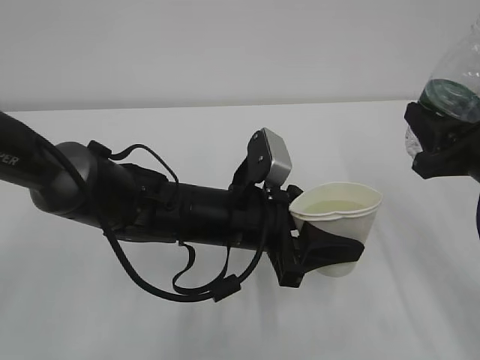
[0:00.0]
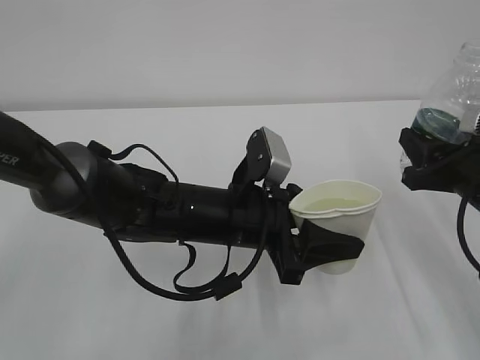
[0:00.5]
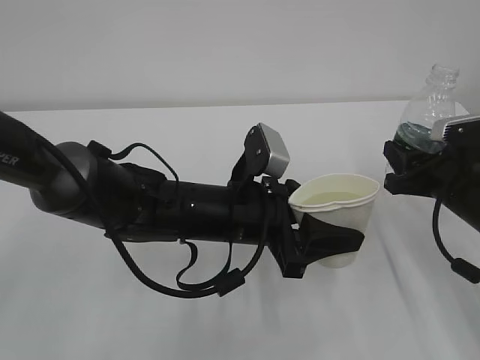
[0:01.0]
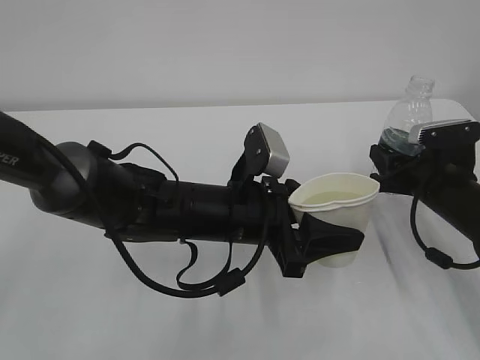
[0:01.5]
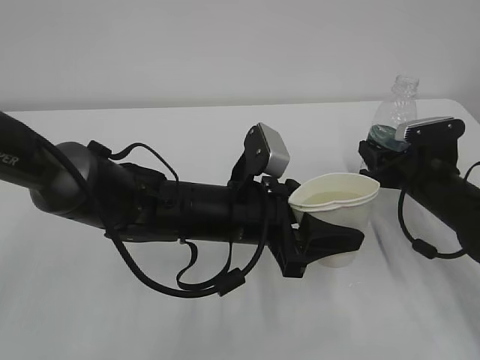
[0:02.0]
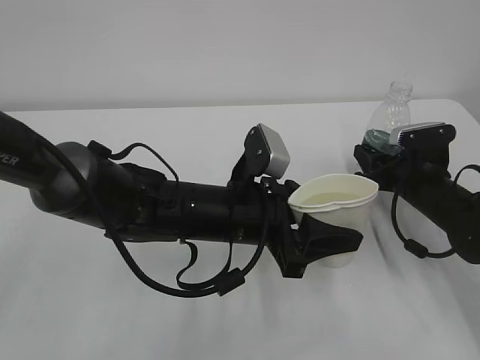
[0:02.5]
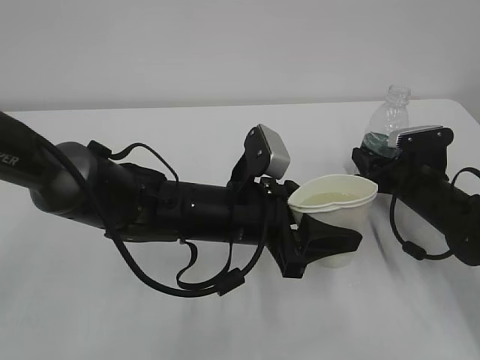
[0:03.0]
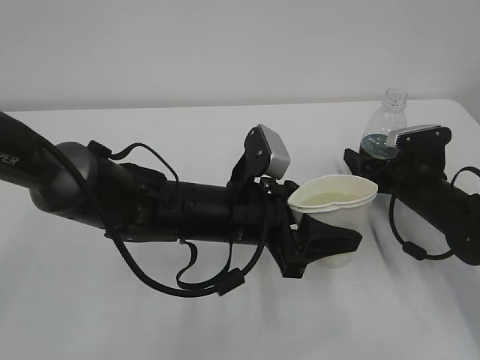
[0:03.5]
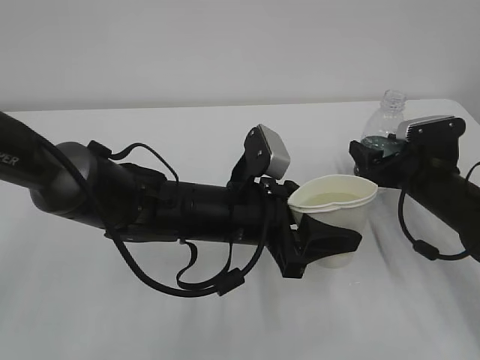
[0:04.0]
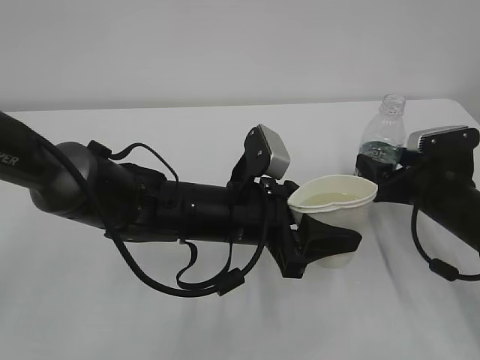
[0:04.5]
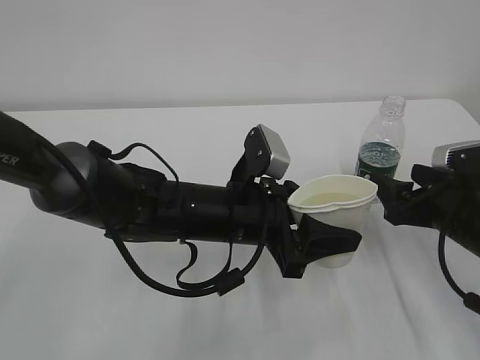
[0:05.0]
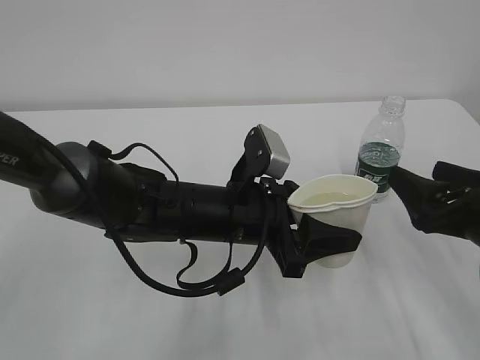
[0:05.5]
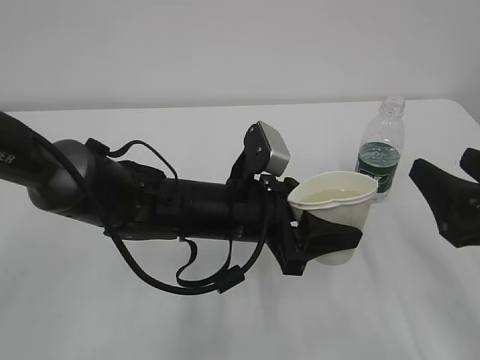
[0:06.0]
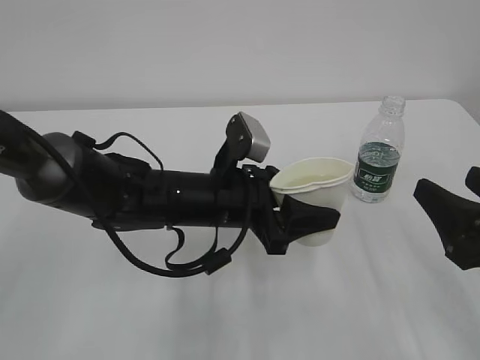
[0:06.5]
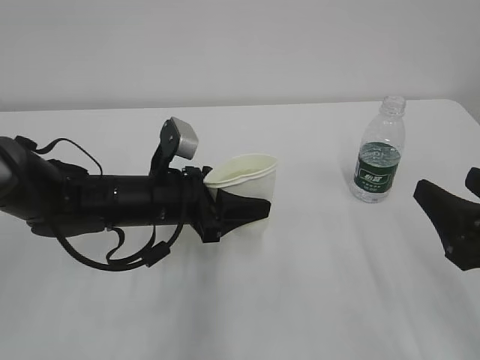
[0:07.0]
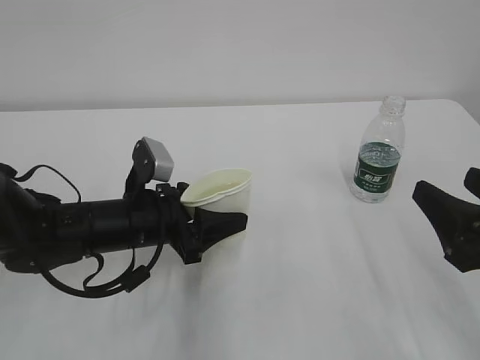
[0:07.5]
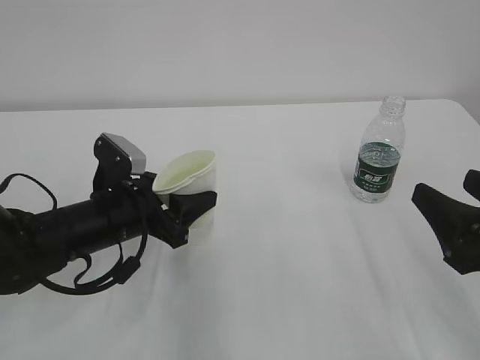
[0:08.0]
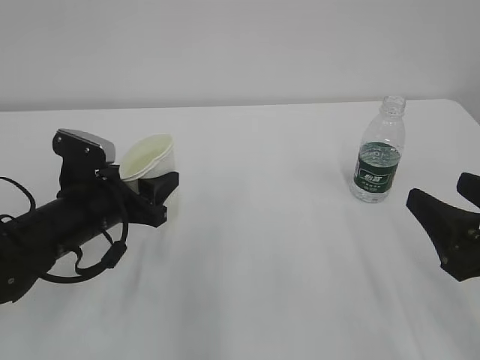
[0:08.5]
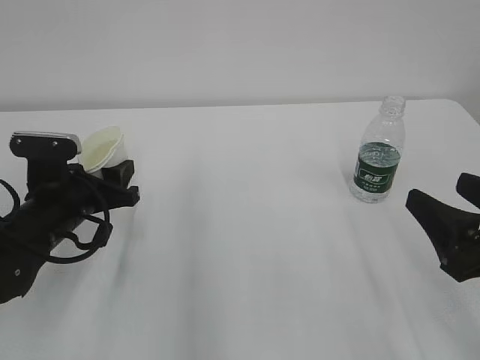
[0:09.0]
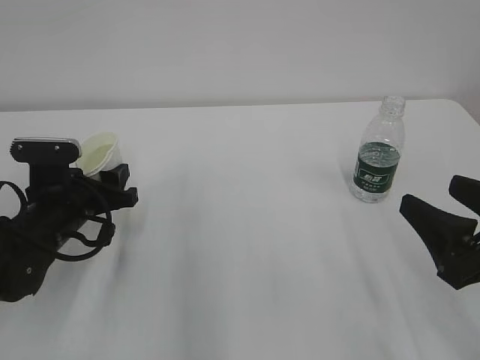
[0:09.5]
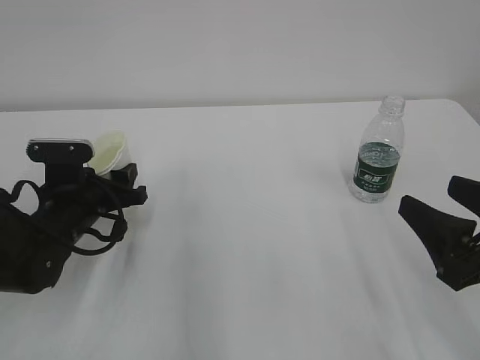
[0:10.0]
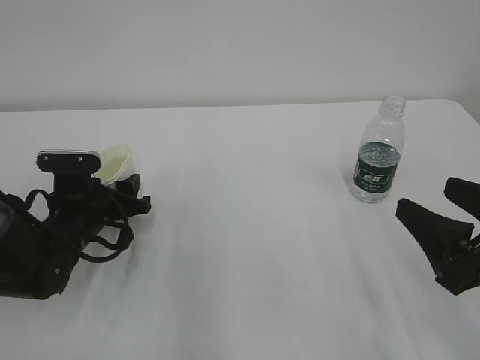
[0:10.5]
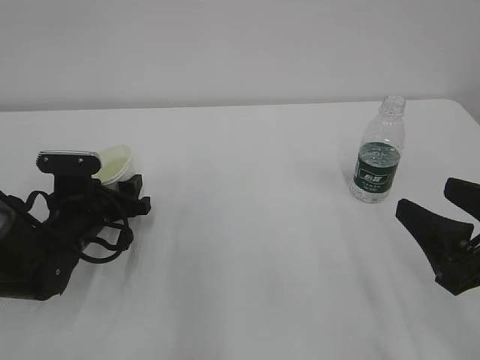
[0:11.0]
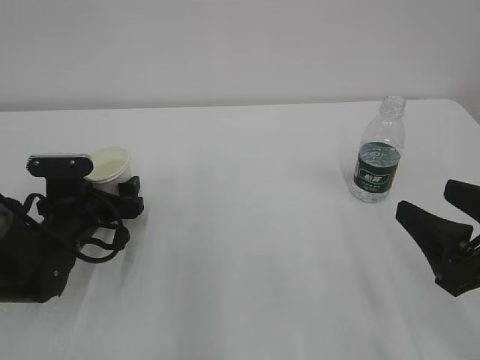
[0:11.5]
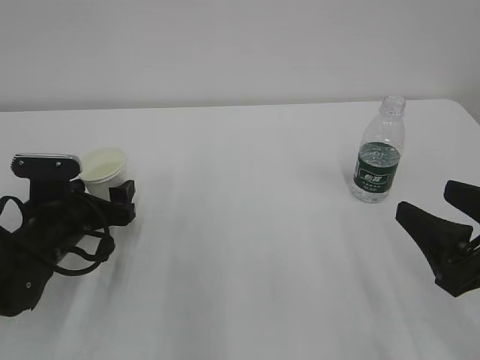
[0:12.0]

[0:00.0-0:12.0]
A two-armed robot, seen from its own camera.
0:00.0 to 0:02.0: The right gripper moves downward and forward, some 15 cm.
0:02.0 to 0:04.0: The right gripper opens up.
0:04.0 to 0:06.0: The right gripper heads backward and upward, covering some 20 cm.
0:06.0 to 0:08.0: The left gripper moves to the left, about 15 cm.
0:08.0 to 0:10.0: The left gripper shifts about 5 cm to the left.
0:10.0 to 0:12.0: The left gripper opens its fingers.

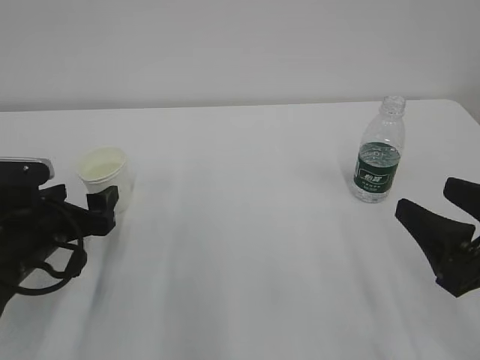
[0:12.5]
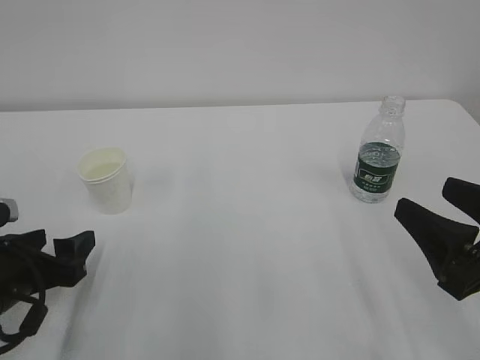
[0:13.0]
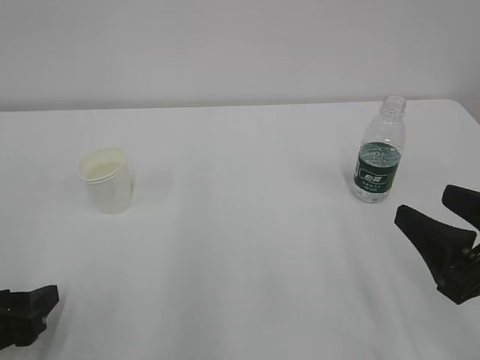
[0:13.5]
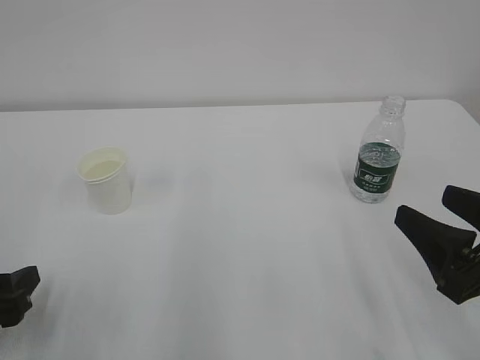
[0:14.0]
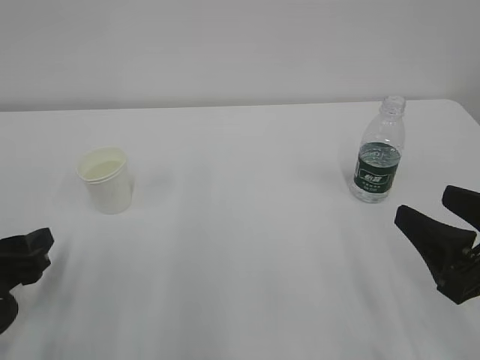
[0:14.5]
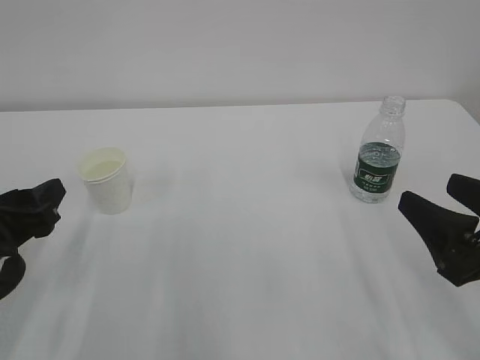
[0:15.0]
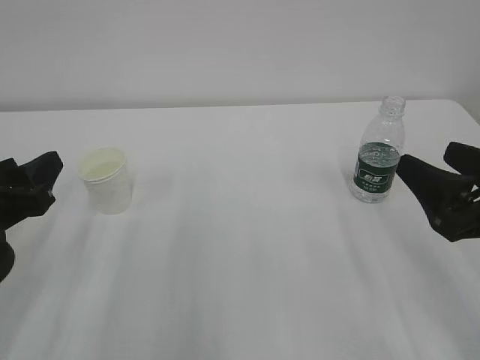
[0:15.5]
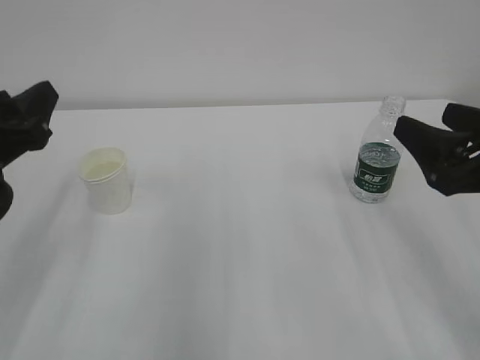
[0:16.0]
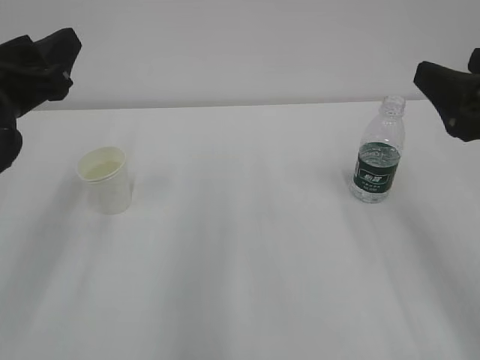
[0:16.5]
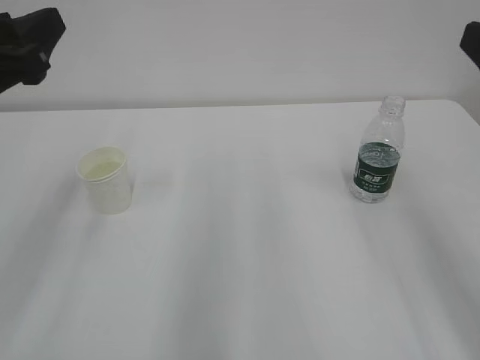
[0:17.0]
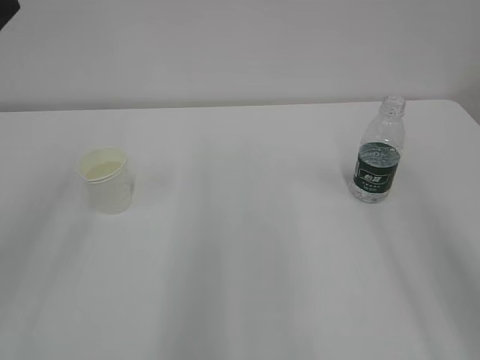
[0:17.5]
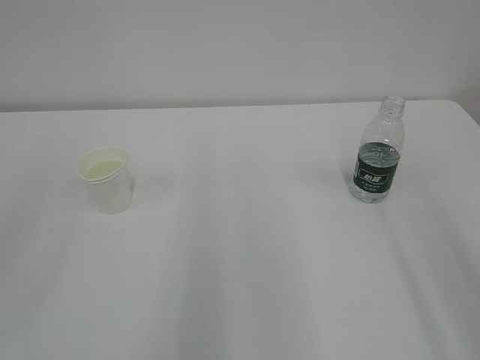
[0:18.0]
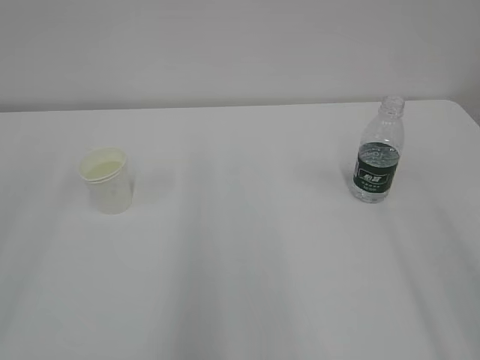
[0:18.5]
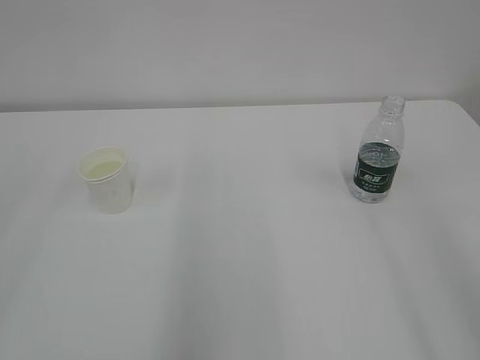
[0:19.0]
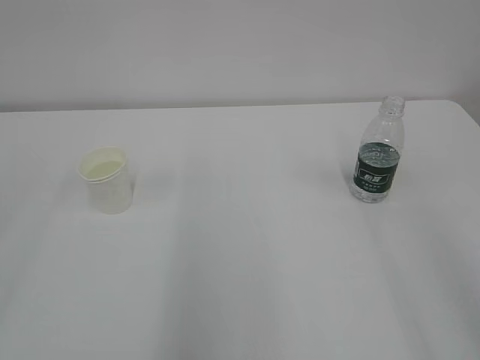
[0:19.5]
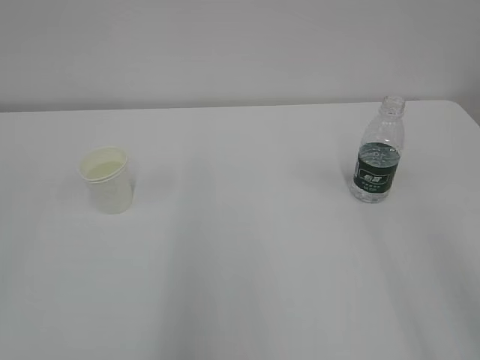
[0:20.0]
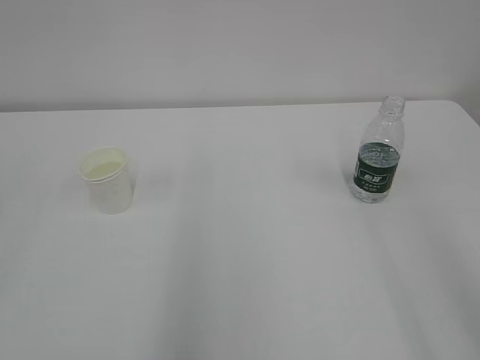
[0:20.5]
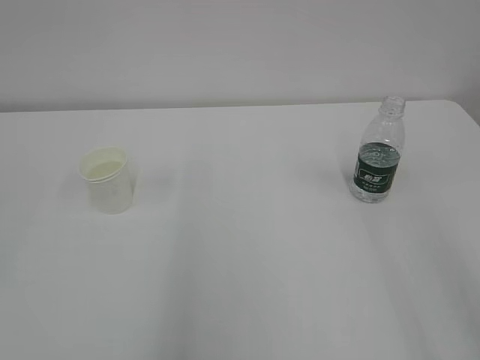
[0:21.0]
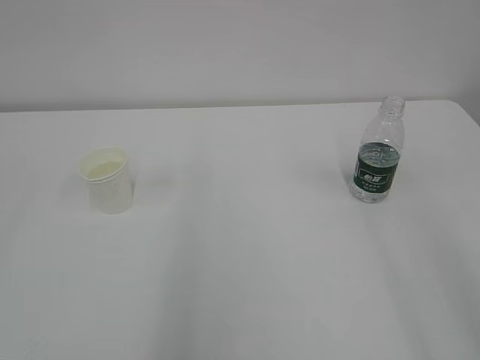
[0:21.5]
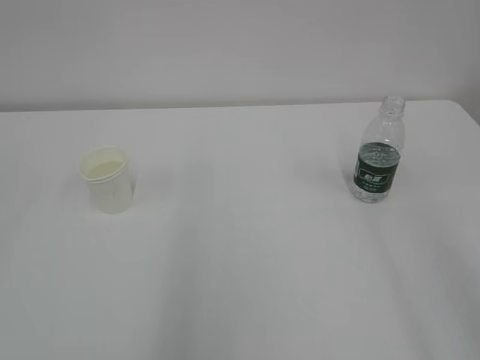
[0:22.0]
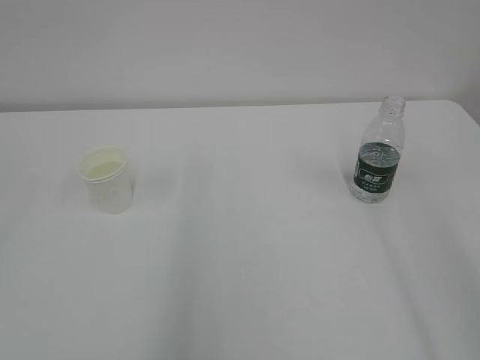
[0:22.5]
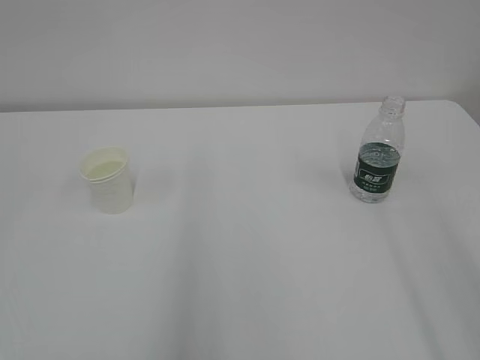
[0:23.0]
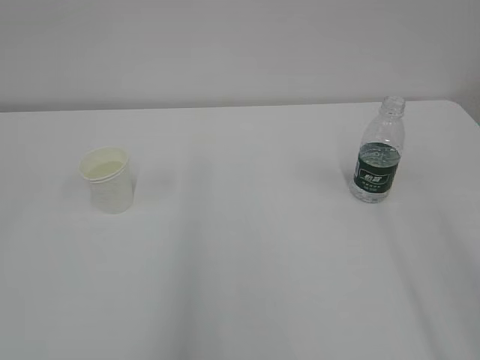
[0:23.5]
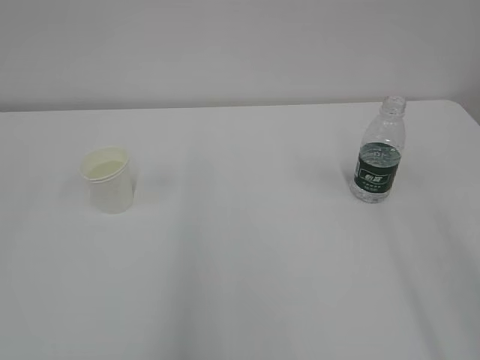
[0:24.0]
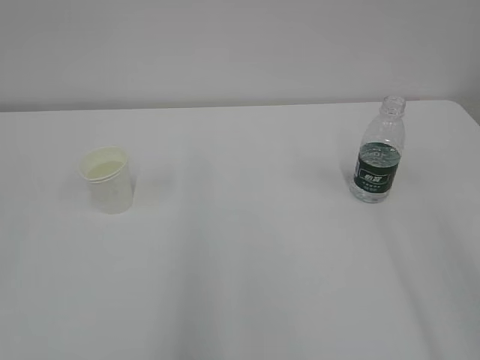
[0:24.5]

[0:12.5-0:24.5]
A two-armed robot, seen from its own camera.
0:12.5 to 0:14.5: The left gripper shifts approximately 10 cm backward, and closes up.
0:14.5 to 0:16.5: Both grippers travel together upward and forward, approximately 15 cm.
0:16.5 to 0:18.5: Both grippers travel together backward and upward, some 20 cm.

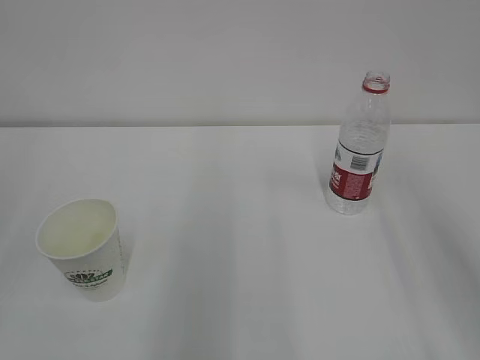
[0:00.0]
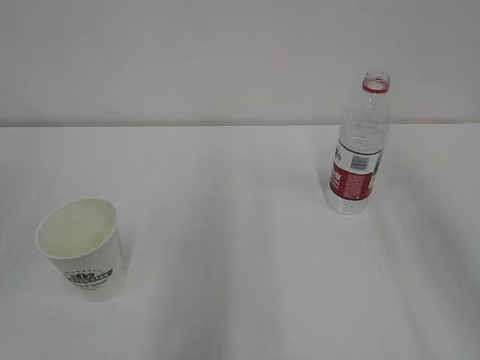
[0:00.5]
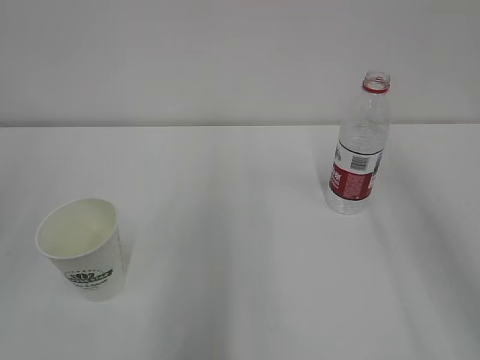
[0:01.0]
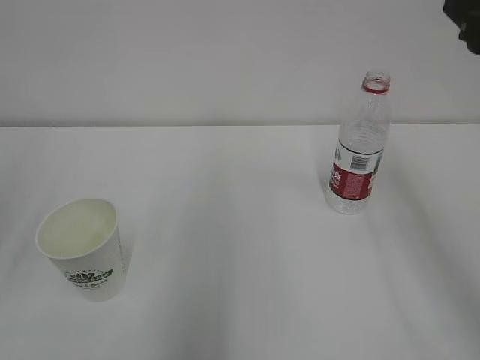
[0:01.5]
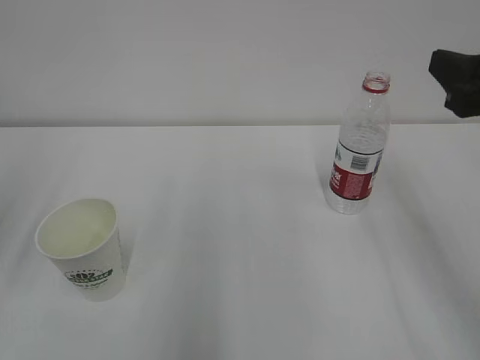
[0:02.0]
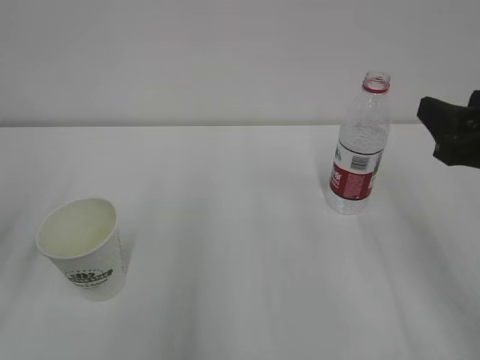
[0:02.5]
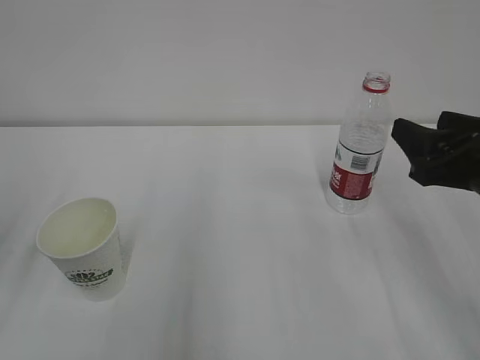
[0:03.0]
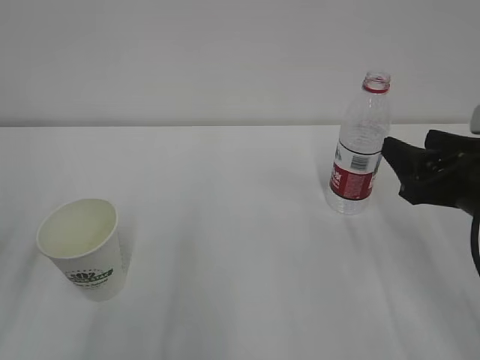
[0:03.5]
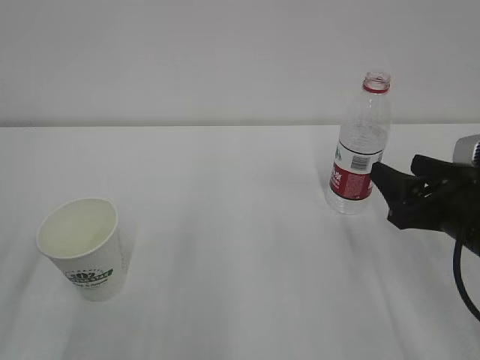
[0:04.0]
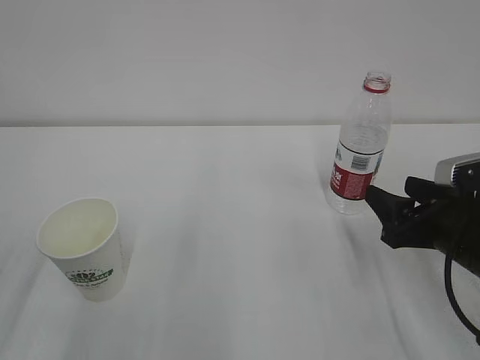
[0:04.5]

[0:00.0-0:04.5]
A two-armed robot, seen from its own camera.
0:00.0 to 0:02.0: The right gripper is displaced forward and downward by some 10 cm.
0:02.0 to 0:04.5: The right gripper is displaced downward by roughly 15 cm.
